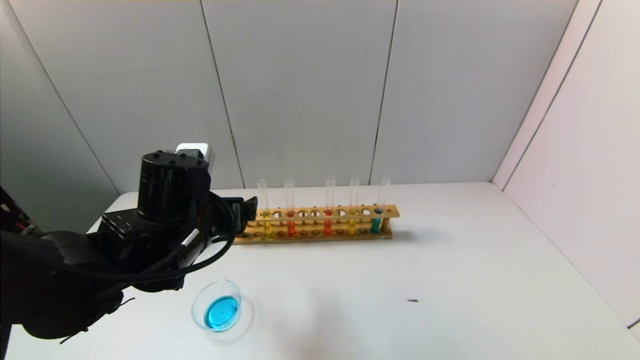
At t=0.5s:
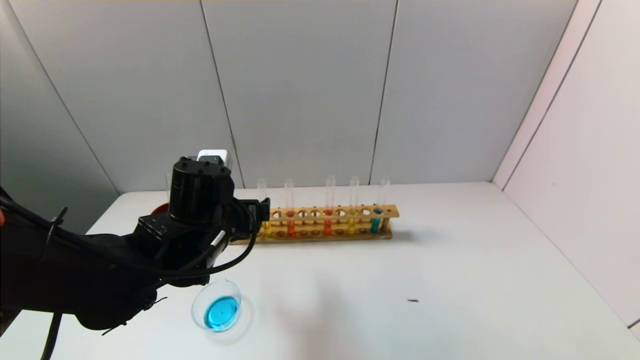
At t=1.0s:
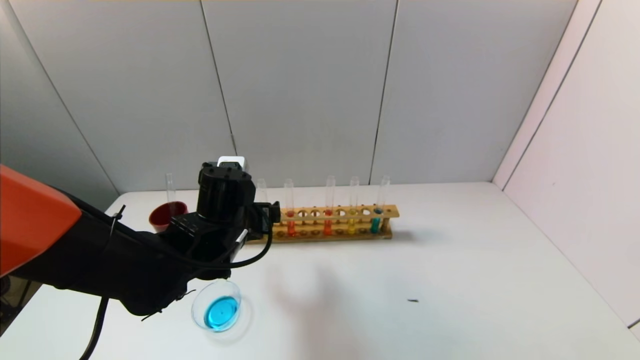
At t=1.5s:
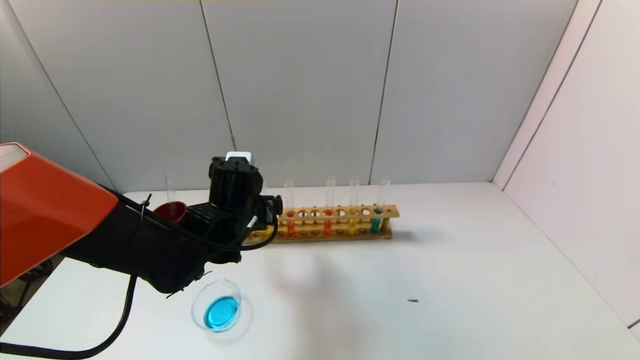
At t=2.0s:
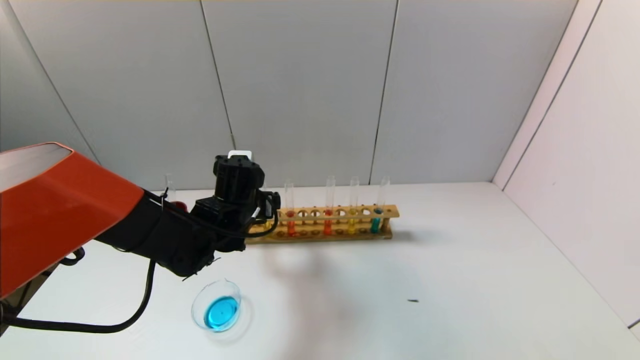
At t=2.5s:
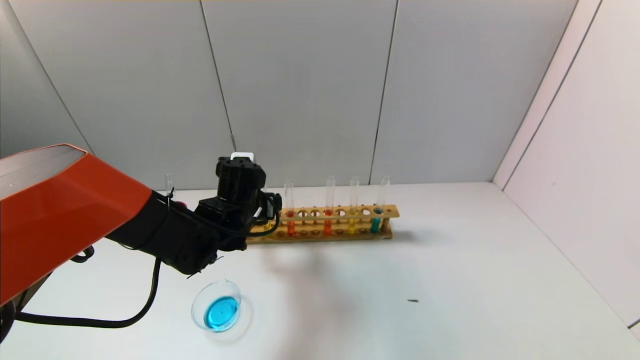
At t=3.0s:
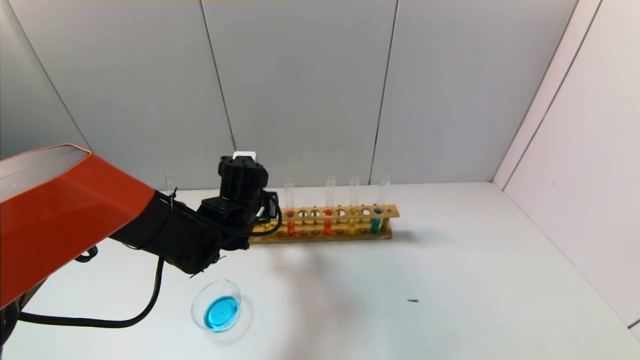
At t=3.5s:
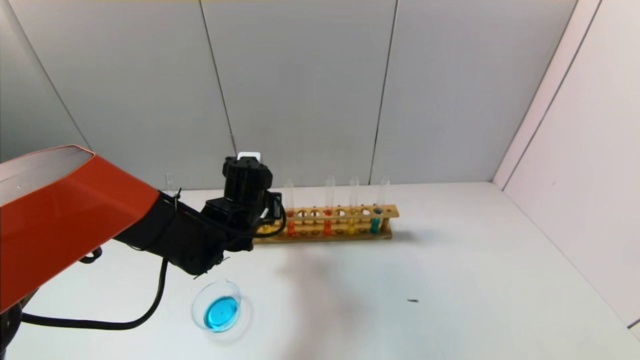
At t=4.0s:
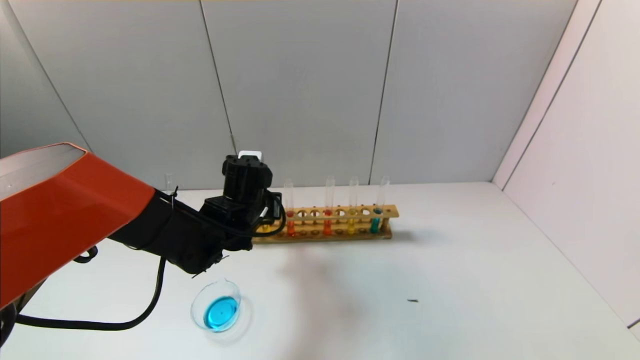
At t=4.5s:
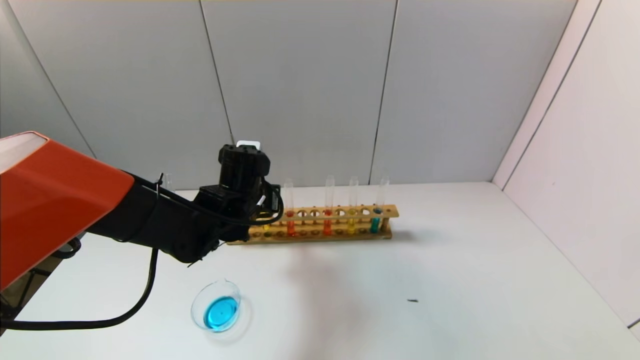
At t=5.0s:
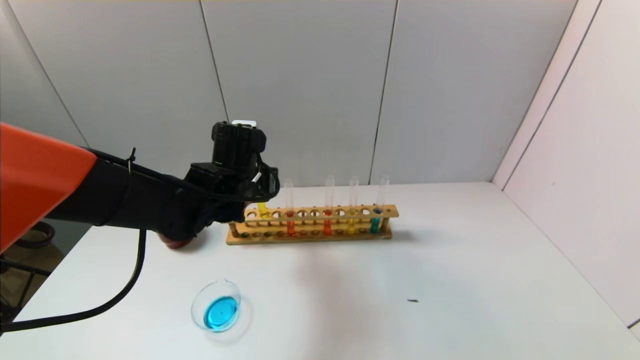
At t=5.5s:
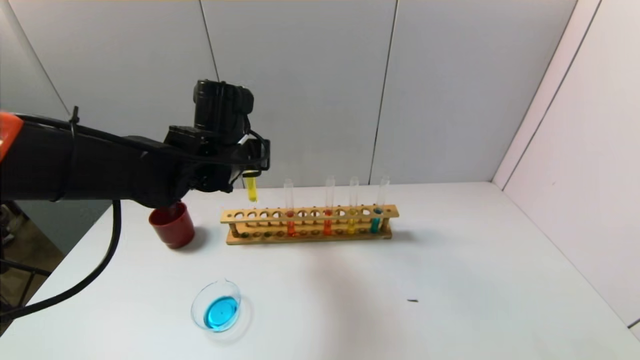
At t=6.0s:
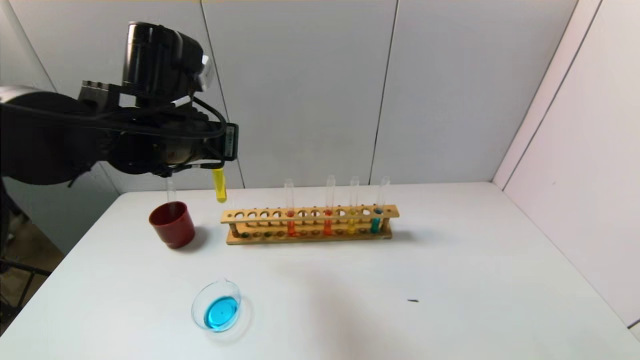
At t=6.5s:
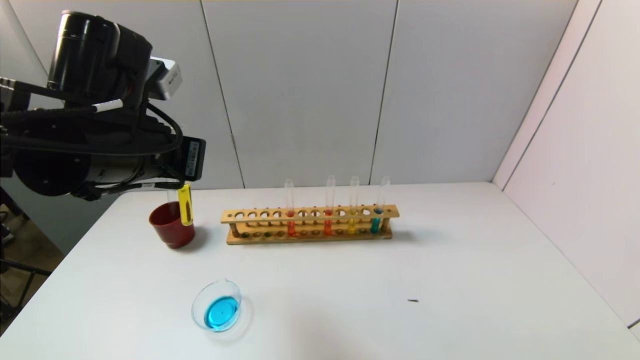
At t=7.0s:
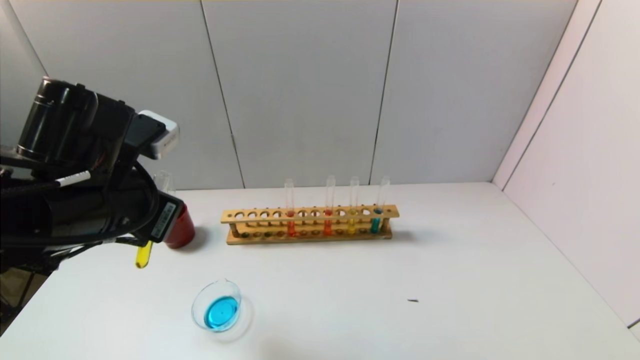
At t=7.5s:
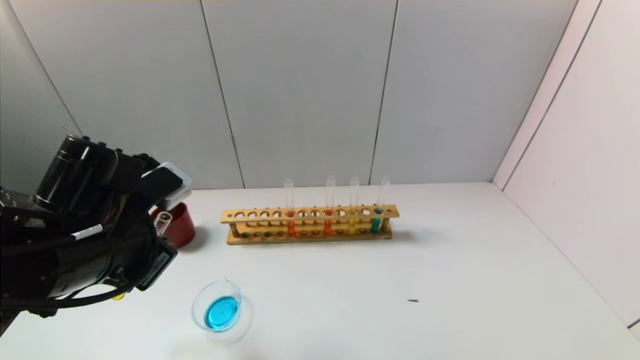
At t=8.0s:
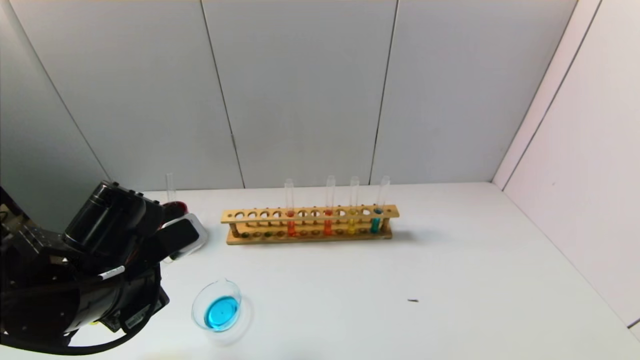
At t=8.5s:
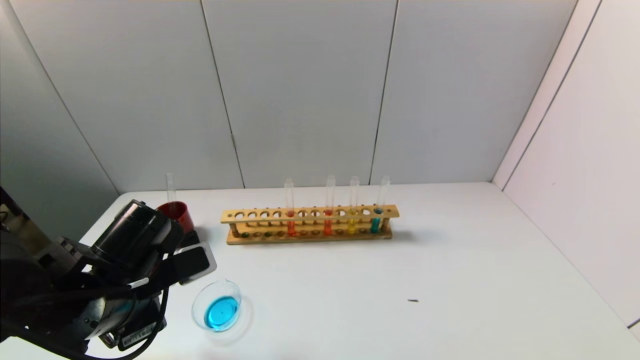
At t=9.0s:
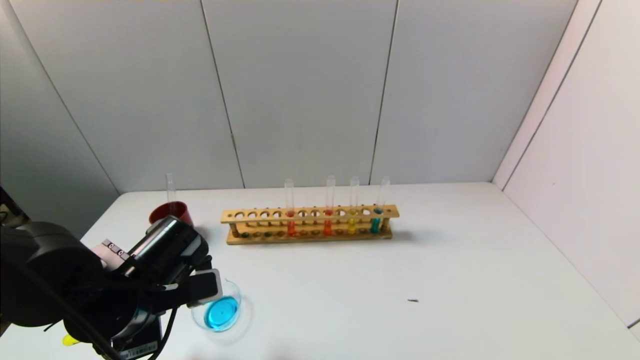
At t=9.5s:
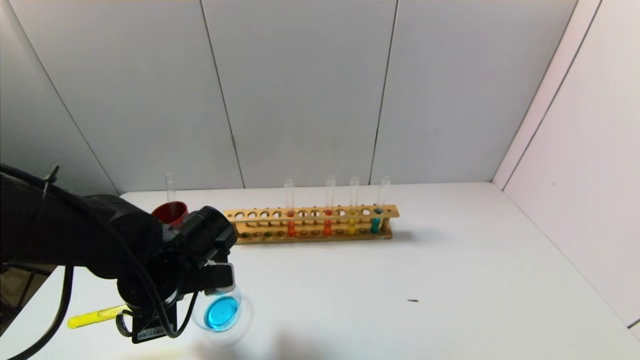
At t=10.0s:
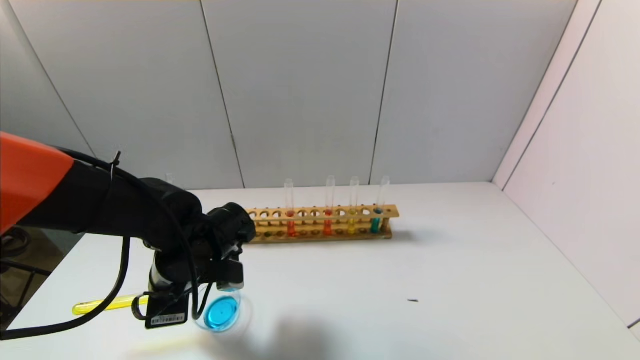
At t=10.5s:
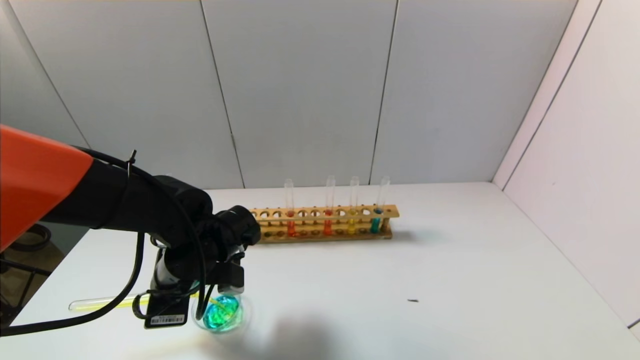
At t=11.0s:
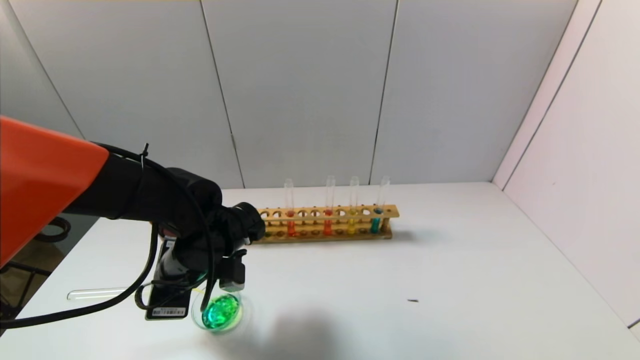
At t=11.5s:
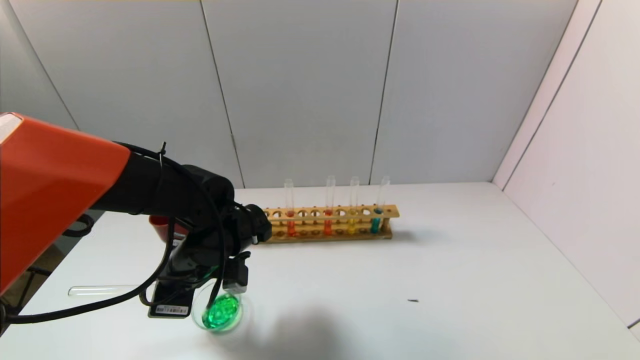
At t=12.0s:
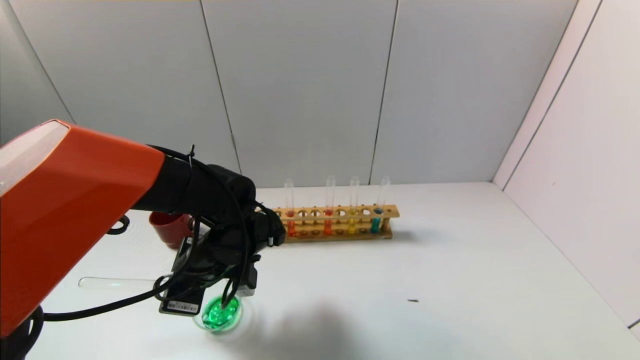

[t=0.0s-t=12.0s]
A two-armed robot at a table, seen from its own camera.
Task of the whole recording: pick up the test tube with yellow pigment and the test tube with blue pigment by grippers and pour them into the beaker.
Step, t=0.0s to t=3.5s: Grasp the yellow reagent with the left gripper.
t=0.0s to t=2.0s: The left gripper heads forward and downward, covering some 10 cm.
t=2.0s to t=4.0s: The left gripper closes.
t=4.0s to t=6.0s: The left gripper shifts some 15 cm upward.
t=6.0s to t=8.0s: The left gripper shifts some 15 cm downward, backward and to the left.
t=8.0s to t=10.0s: The left gripper is displaced forward and downward by approximately 10 cm.
t=10.0s to t=12.0s: The grippers move only a little.

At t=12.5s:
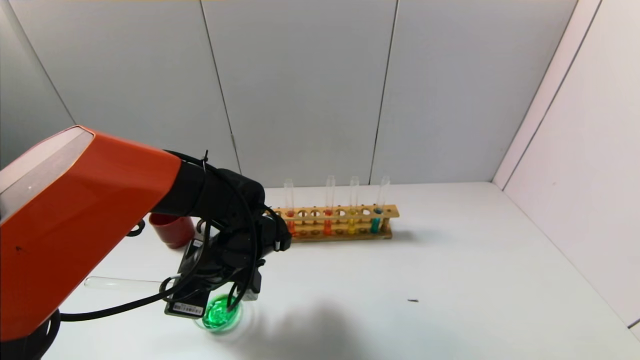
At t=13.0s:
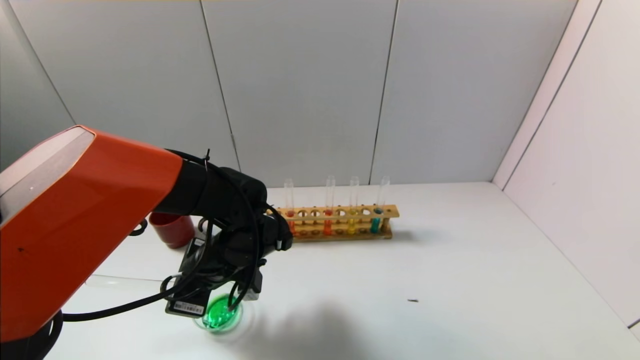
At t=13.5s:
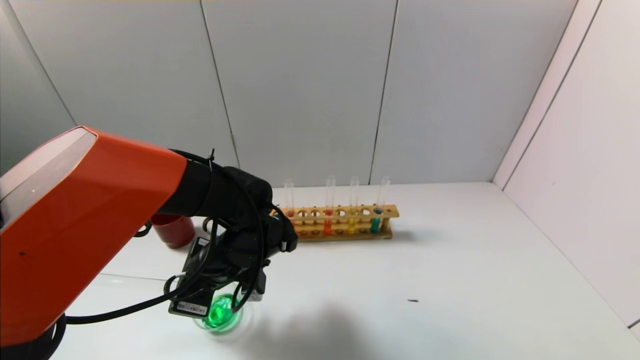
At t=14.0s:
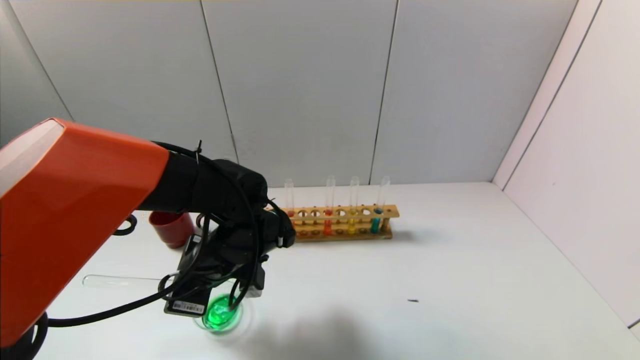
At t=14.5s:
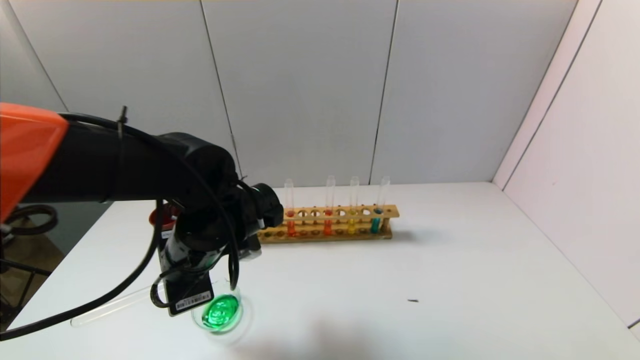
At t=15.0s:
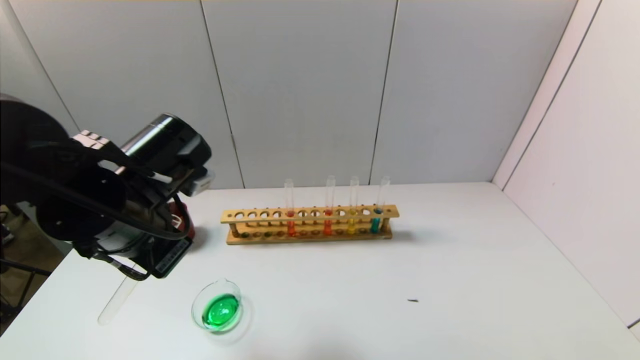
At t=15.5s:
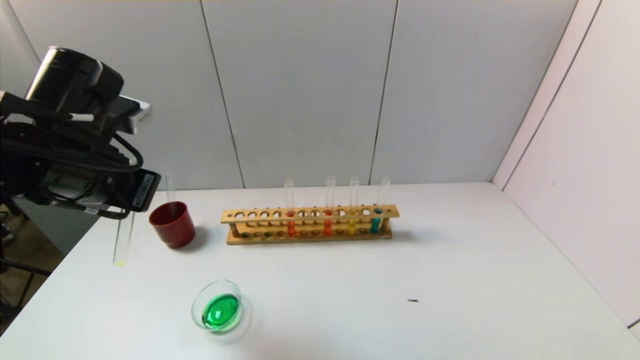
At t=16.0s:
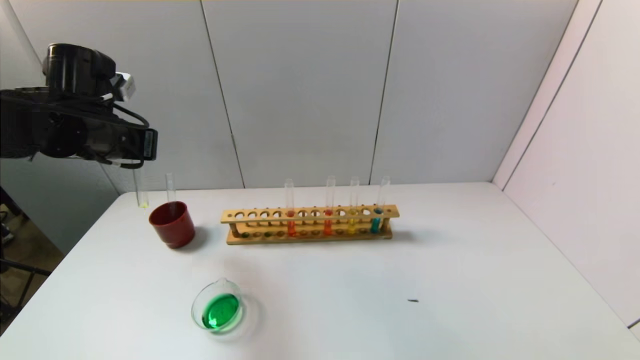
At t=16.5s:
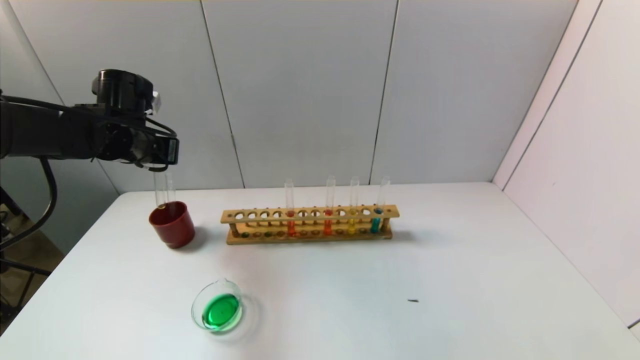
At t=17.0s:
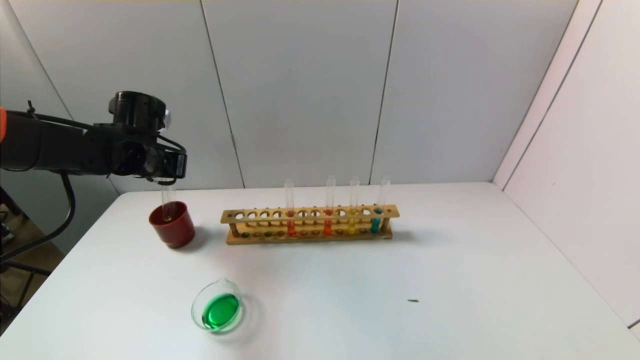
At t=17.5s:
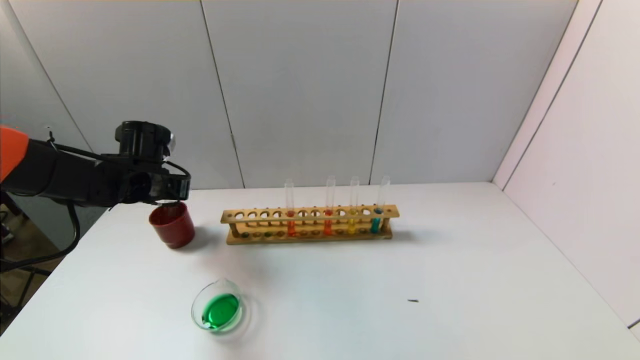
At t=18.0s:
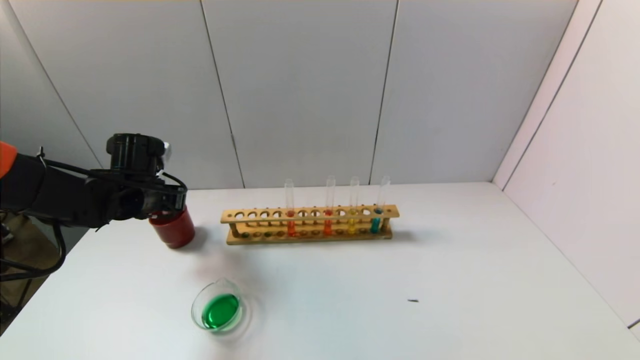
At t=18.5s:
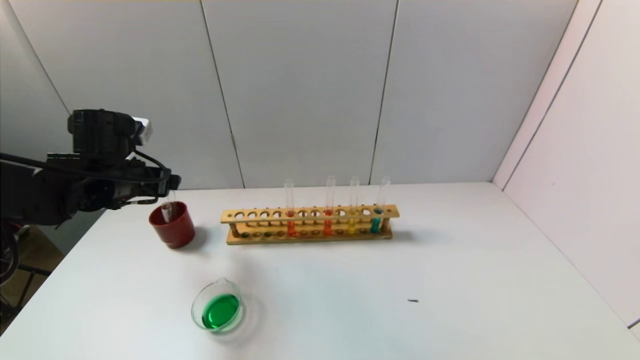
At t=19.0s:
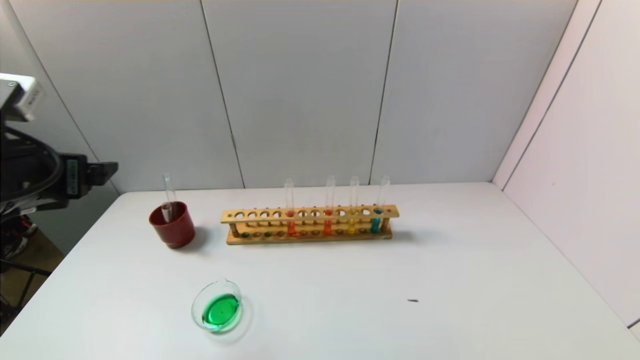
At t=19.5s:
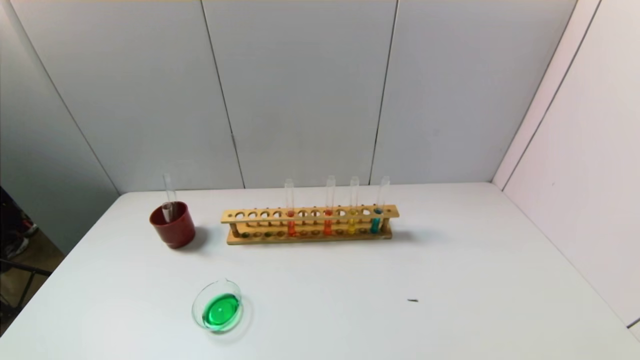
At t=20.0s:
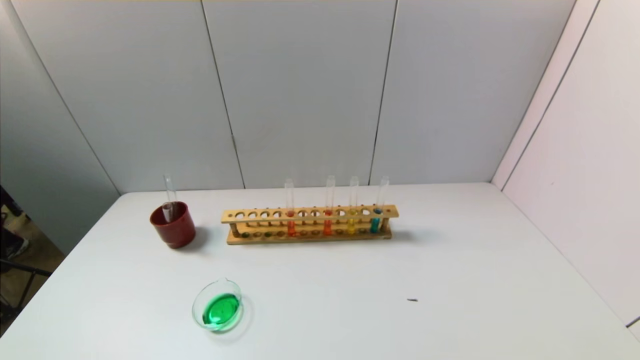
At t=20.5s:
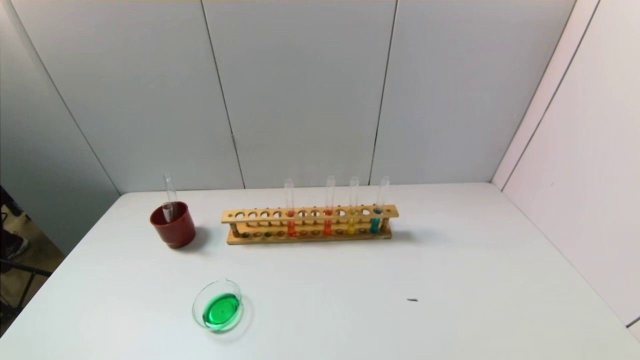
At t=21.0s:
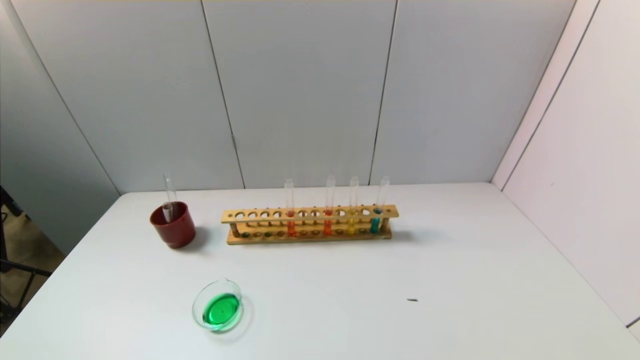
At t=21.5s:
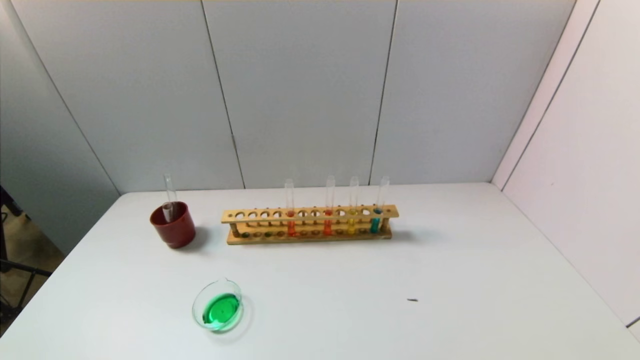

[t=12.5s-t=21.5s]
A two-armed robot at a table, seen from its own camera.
Task of the whole recording: pick up the test tube with yellow pigment and the test tube with blue pigment by grippers and pour them into the beaker.
Step, t=13.0s to t=18.0s: Place the test tube into the brown cup with the left gripper.
t=12.5s to t=14.5s: The left gripper heads upward, covering about 5 cm.
t=14.5s to t=17.0s: The left gripper moves forward and to the left, roughly 20 cm.
t=17.0s to t=19.5s: The left gripper heads backward, covering some 35 cm, and opens up.
